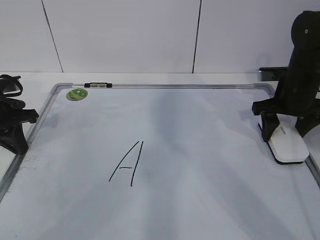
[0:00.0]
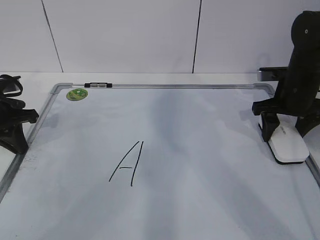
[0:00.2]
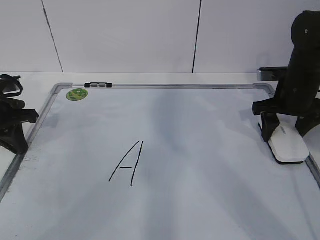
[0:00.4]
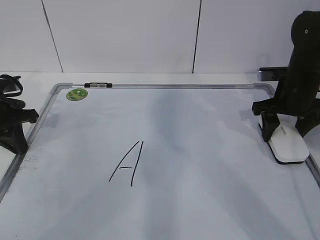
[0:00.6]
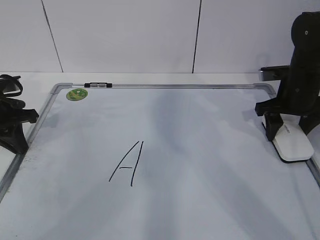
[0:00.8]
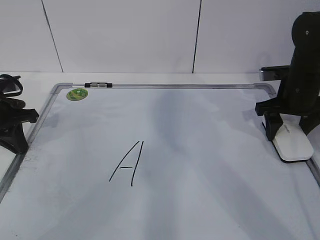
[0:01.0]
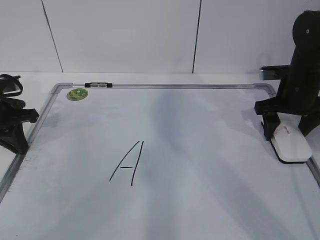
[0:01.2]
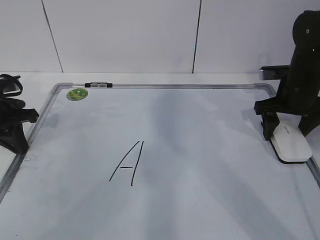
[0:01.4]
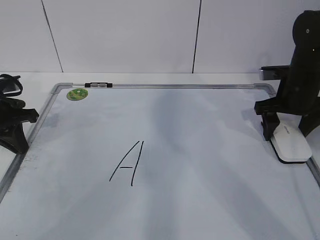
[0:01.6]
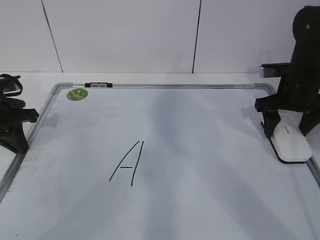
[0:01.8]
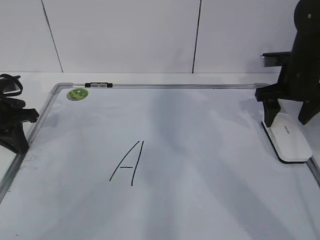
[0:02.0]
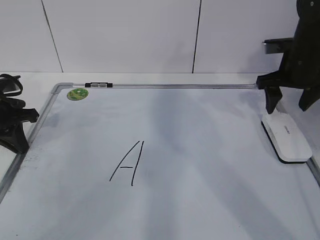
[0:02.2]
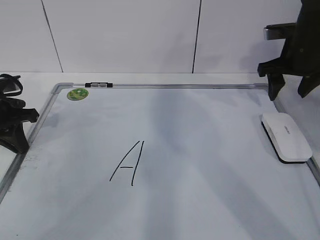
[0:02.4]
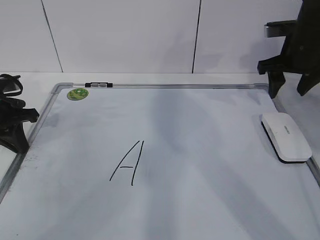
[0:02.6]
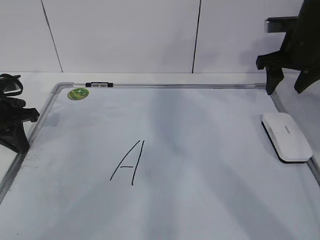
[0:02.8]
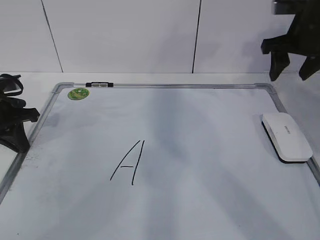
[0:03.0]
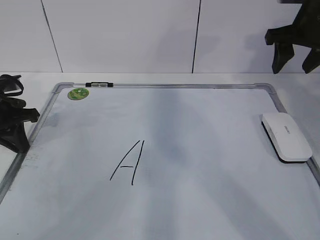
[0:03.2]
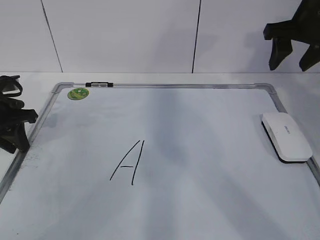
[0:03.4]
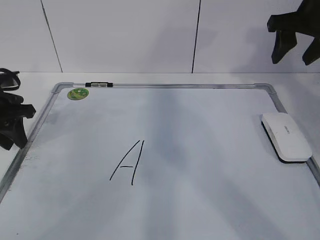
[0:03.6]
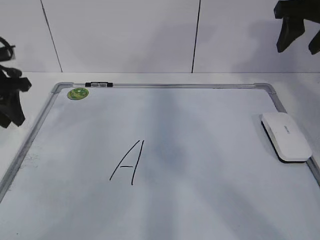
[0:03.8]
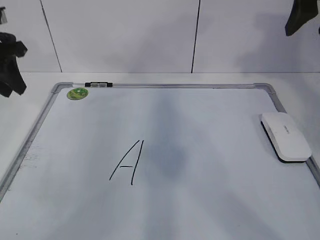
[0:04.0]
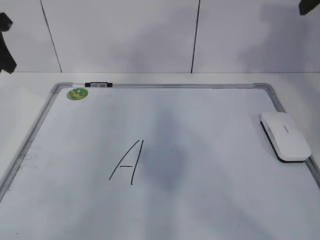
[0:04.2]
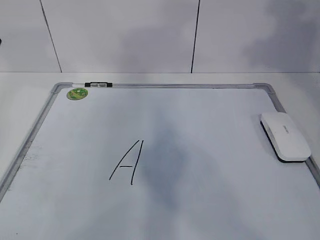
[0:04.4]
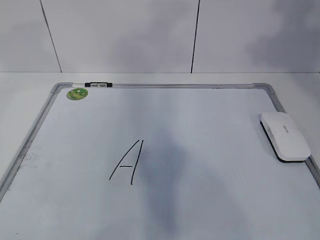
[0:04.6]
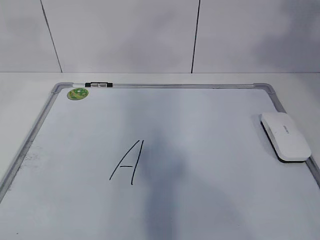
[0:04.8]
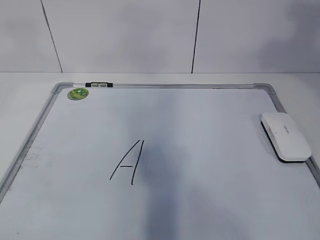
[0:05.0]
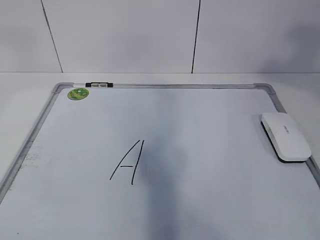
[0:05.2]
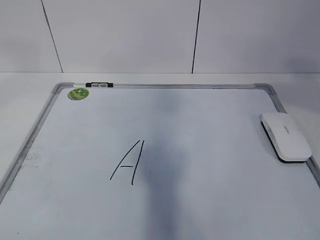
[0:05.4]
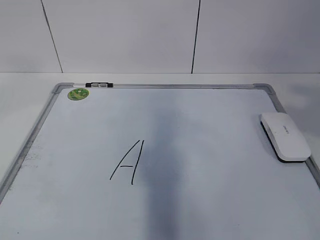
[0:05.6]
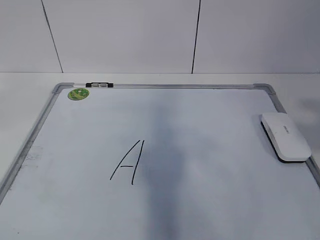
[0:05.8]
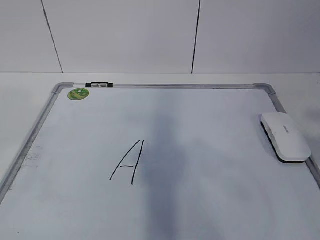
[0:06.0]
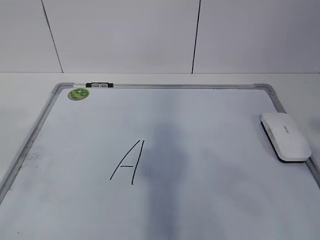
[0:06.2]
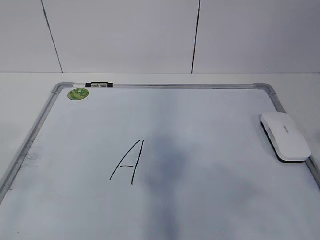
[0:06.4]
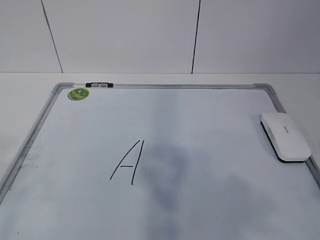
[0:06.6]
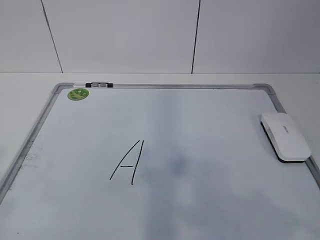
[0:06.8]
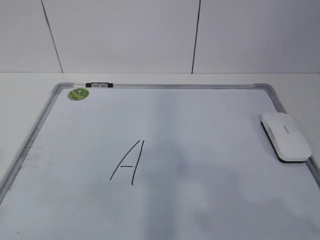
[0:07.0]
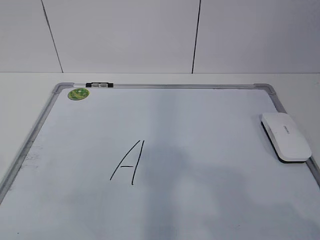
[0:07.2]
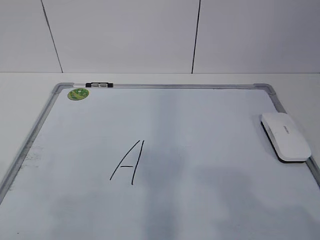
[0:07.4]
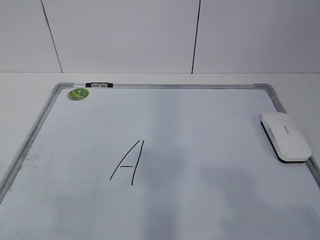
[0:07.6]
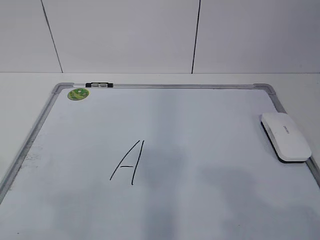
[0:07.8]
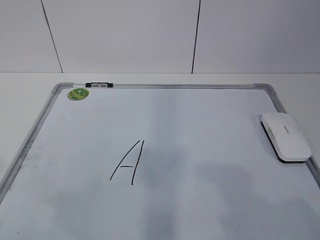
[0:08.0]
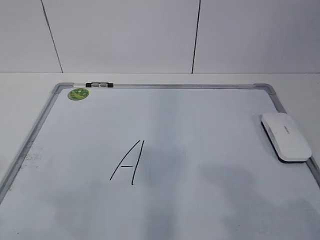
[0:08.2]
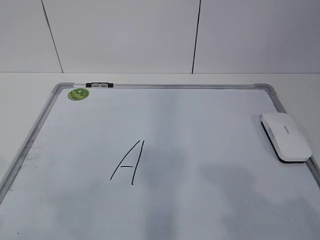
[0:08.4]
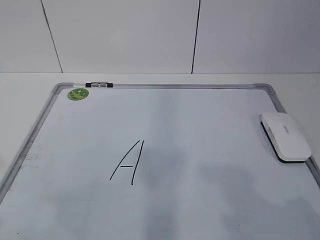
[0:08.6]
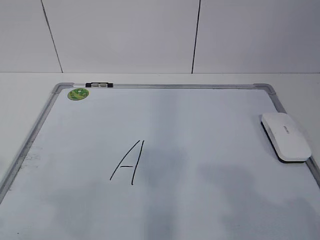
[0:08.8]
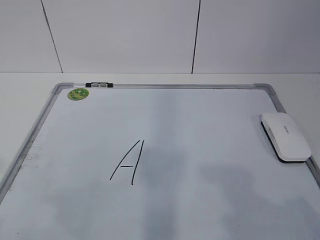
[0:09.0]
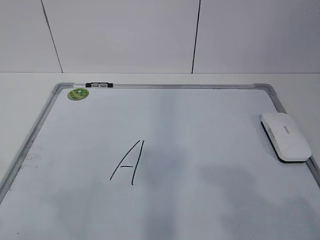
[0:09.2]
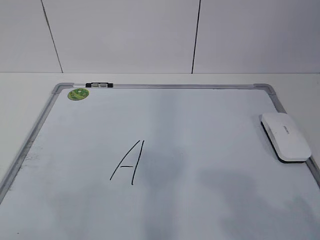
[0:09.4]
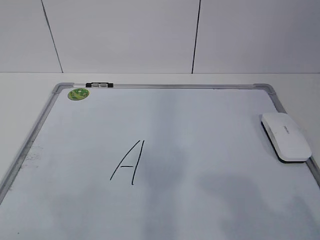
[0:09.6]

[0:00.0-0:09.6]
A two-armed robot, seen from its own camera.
Task of the whole recording: pick up the eraser on the blackboard and erase the letter "a".
0:00.0 to 0:01.6: The right gripper opens its fingers.
0:01.6 to 0:03.2: The right gripper goes roughly 10 cm upward, and closes up.
0:03.2 to 0:04.8: The grippers both shift upward and backward by about 30 cm. The left gripper opens up.
0:04.8 to 0:06.4: The right gripper heads backward and downward, covering approximately 25 cm. The left gripper moves backward, about 25 cm.
0:06.4 to 0:08.0: Both grippers move downward, about 10 cm.

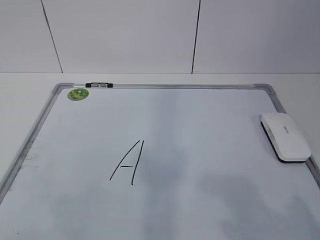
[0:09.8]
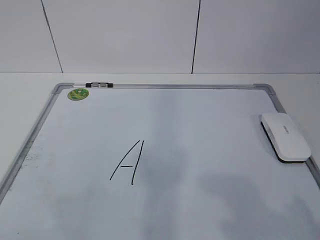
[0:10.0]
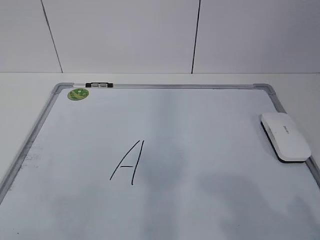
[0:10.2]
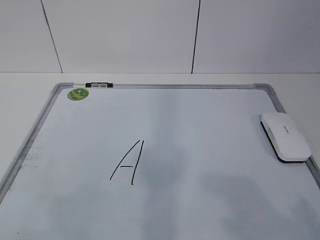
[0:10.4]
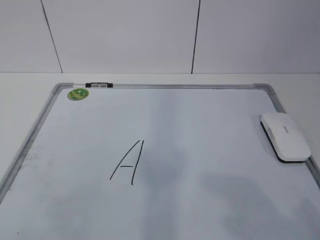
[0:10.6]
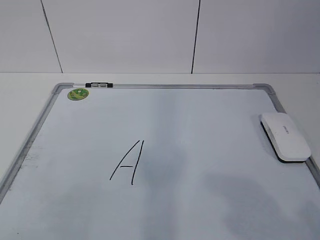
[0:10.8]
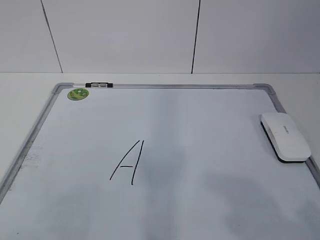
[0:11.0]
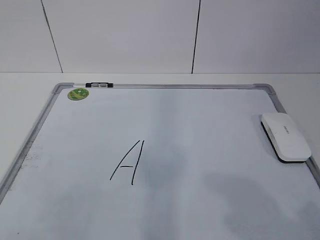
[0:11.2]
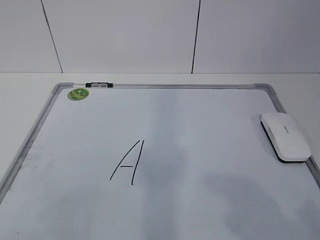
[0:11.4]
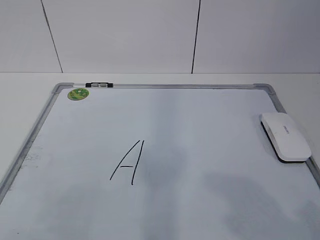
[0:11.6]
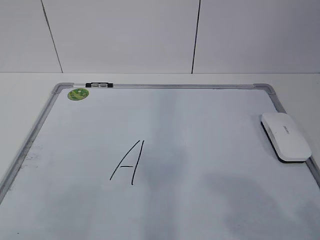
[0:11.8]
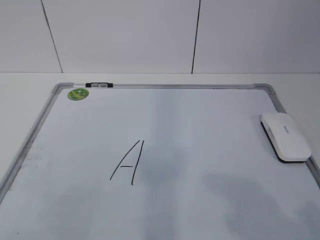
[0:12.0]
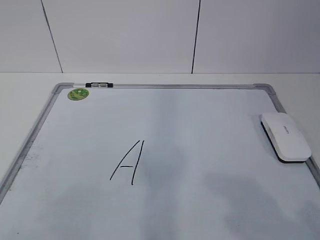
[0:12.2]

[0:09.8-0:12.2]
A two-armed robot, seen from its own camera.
Task of the whole recording: pick up the eraser on the blackboard and erase the letter "a".
0:11.0 to 0:12.2: Both grippers stay put.

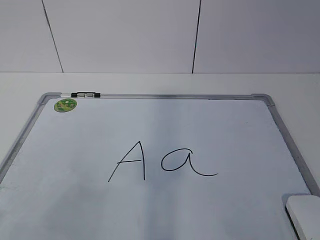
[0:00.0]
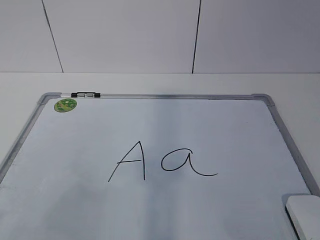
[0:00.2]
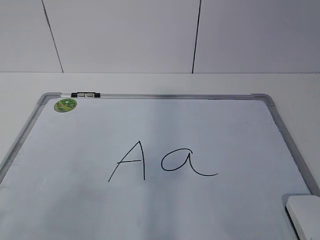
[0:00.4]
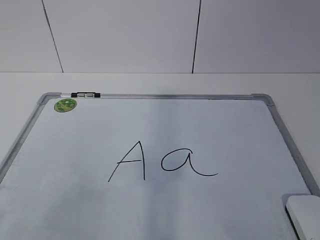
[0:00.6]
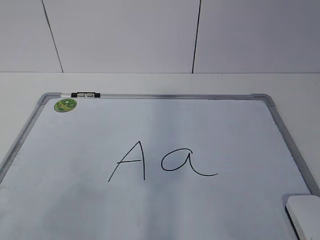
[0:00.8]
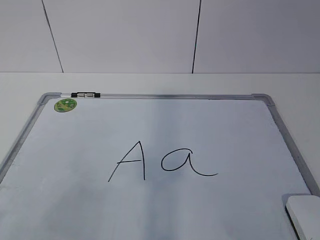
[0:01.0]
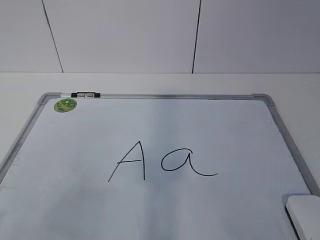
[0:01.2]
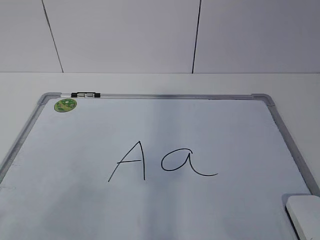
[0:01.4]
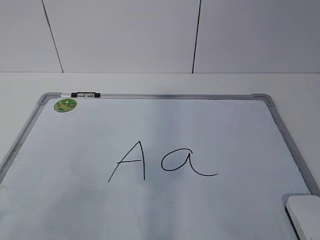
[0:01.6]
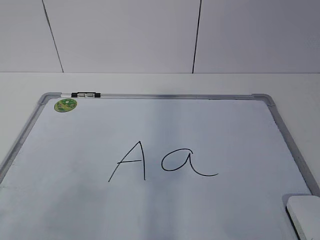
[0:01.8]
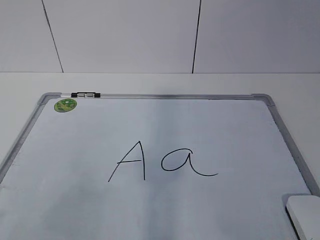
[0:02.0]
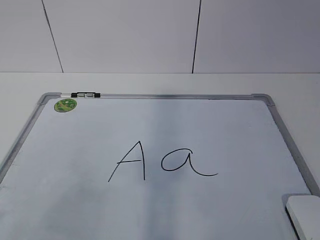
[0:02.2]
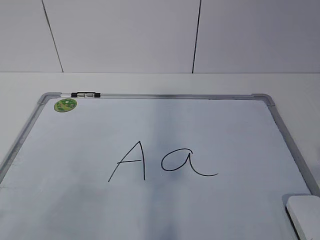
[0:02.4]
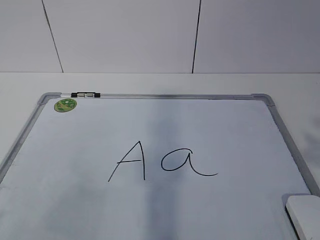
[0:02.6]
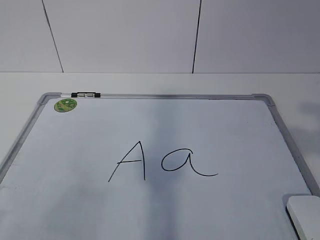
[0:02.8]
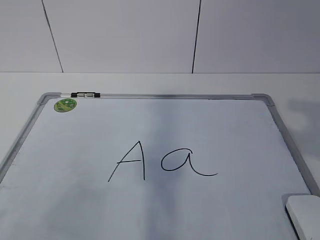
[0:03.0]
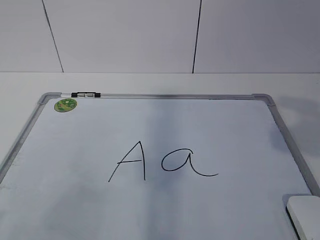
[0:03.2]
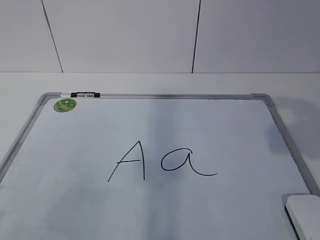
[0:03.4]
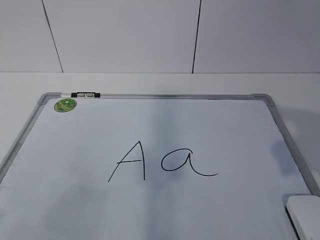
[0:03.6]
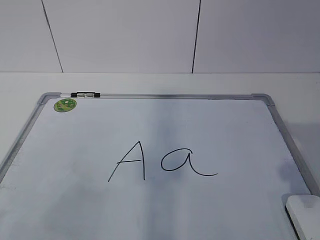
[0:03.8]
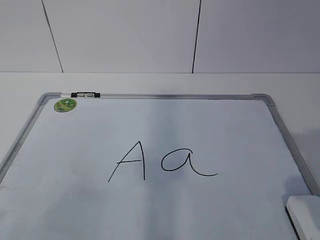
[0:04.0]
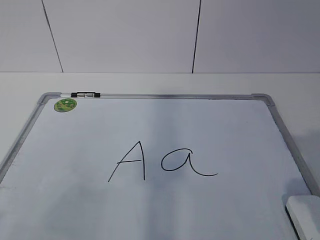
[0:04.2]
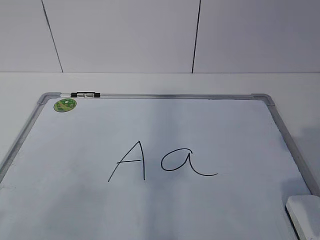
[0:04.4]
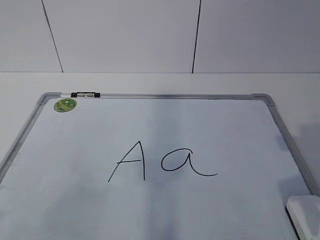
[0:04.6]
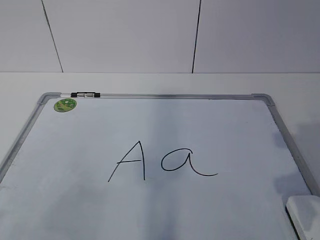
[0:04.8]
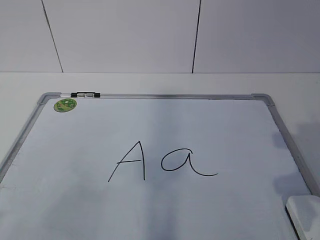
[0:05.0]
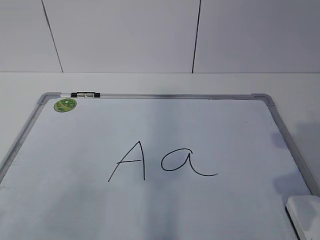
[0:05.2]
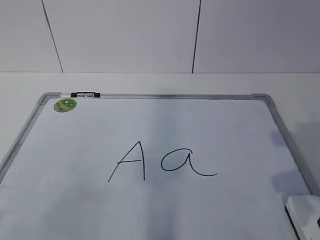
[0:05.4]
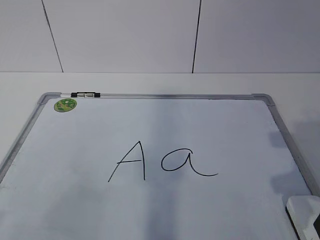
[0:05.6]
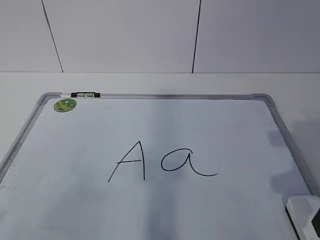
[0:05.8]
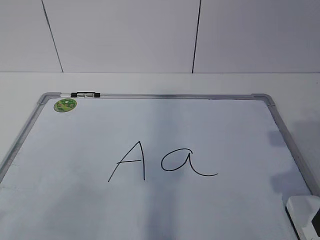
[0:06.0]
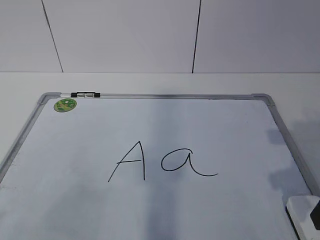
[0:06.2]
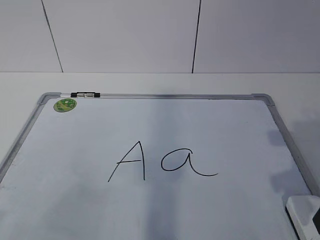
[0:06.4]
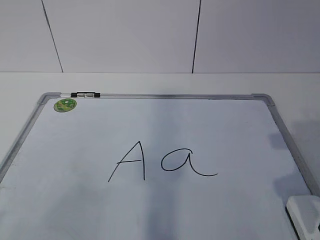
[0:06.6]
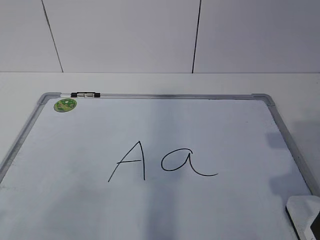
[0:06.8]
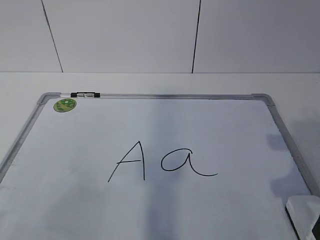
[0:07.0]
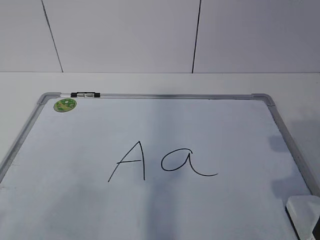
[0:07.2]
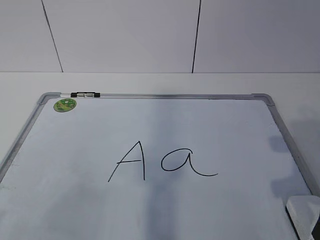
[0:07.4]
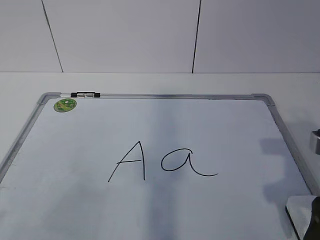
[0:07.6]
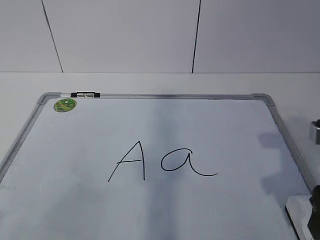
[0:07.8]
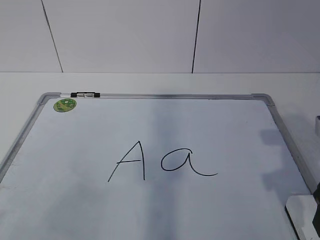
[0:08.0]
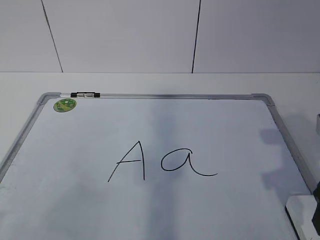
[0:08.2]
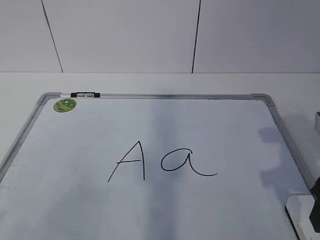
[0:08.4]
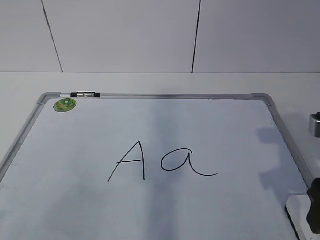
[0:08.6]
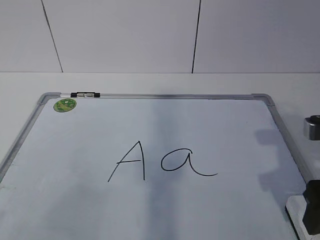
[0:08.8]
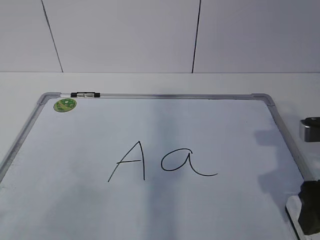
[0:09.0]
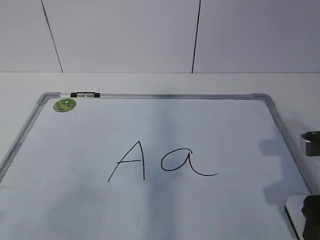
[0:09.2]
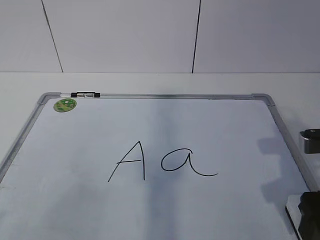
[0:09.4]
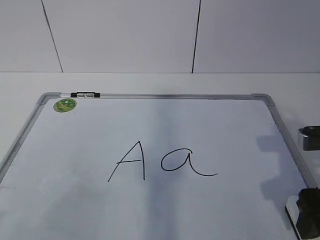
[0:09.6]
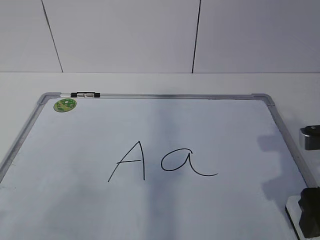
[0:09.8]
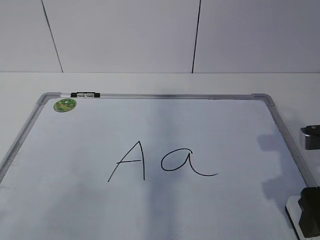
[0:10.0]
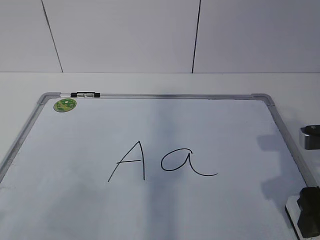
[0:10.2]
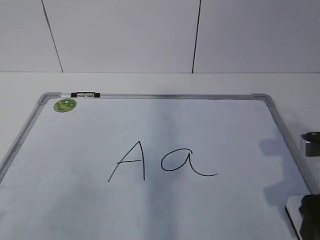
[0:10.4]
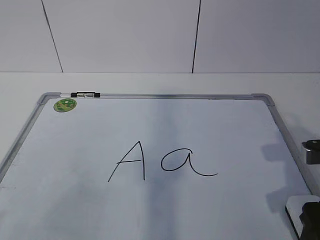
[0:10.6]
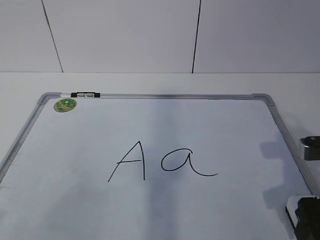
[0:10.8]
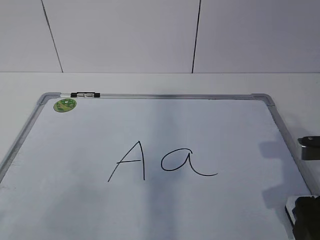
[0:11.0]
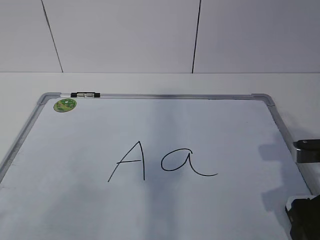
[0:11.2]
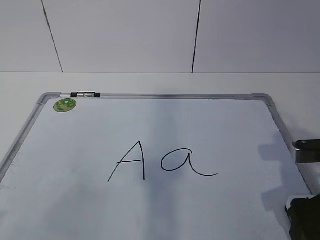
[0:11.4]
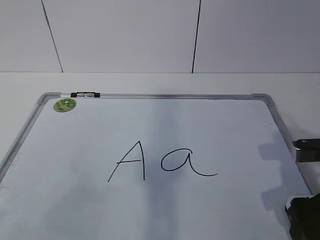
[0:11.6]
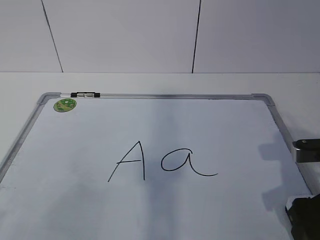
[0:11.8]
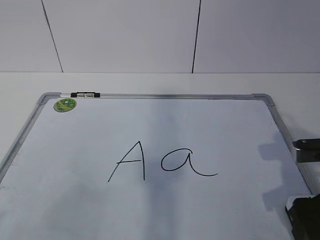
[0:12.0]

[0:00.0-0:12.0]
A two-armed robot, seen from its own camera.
Task of the whole recording: pick up the eraser on the blackboard and erase the letter "a".
Step, 0:00.0 to 0:11.0: Grab the eraser with your right hand.
0:03.0 to 0:04.4: The right gripper travels downward by approximately 10 cm.
0:06.0 to 0:07.6: The right gripper closes, then reopens.
0:07.6 to 0:10.4: The grippers stay close to where they were, moving slightly.
0:10.4 to 0:12.0: The right gripper closes up.
